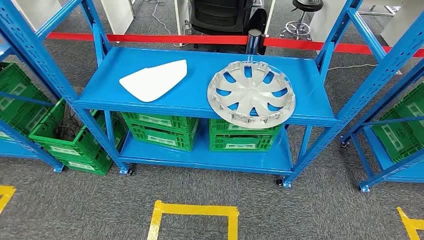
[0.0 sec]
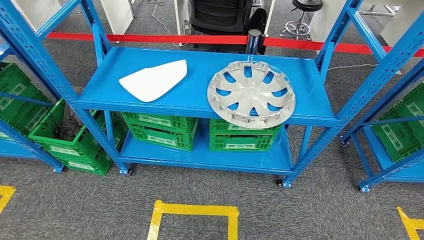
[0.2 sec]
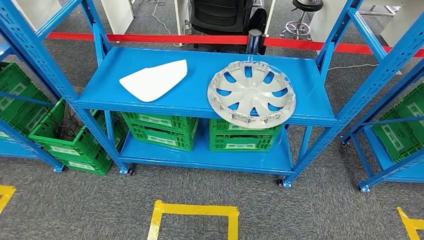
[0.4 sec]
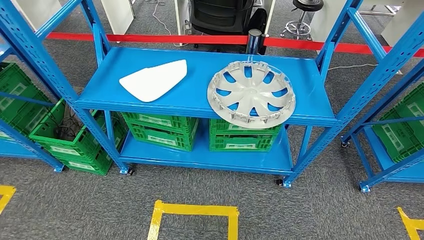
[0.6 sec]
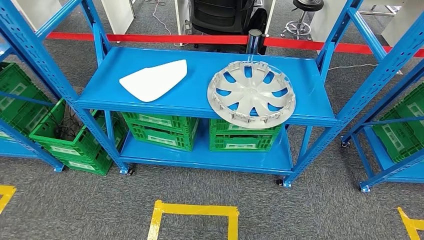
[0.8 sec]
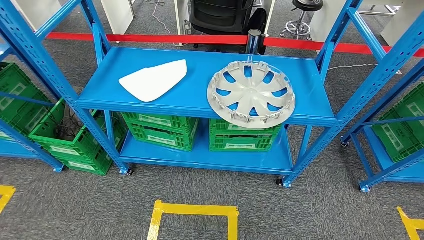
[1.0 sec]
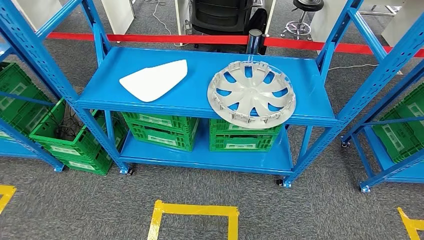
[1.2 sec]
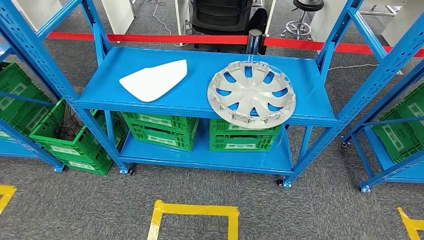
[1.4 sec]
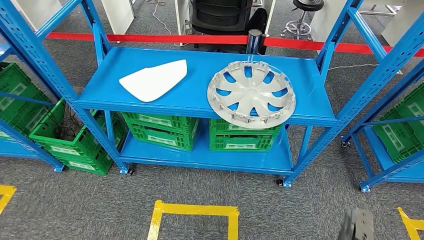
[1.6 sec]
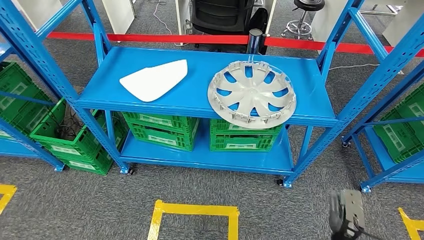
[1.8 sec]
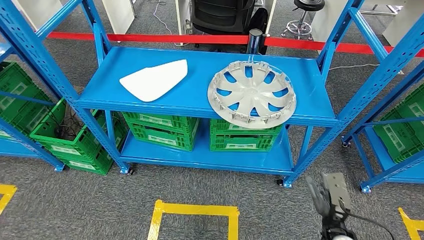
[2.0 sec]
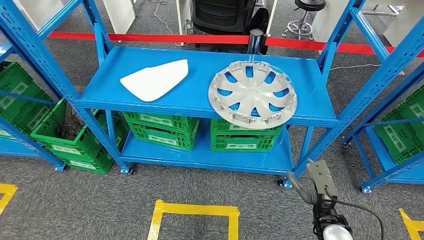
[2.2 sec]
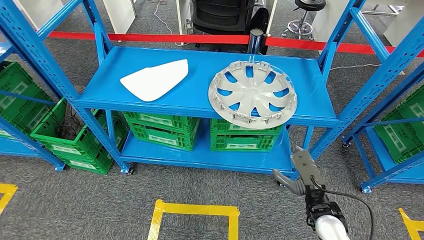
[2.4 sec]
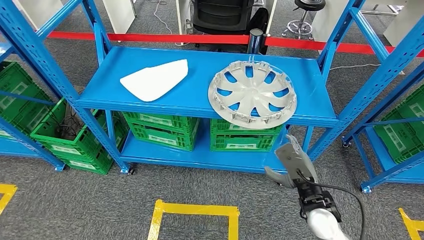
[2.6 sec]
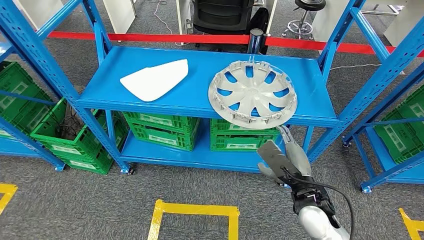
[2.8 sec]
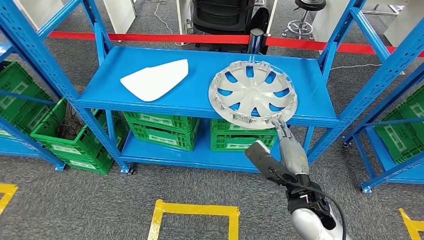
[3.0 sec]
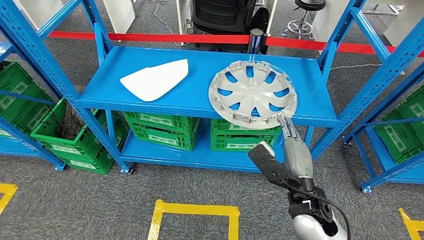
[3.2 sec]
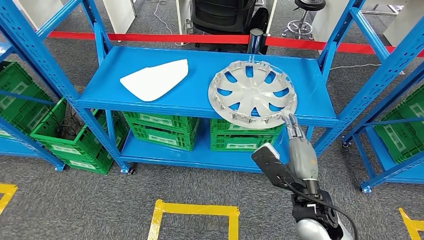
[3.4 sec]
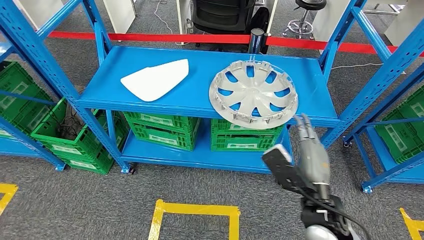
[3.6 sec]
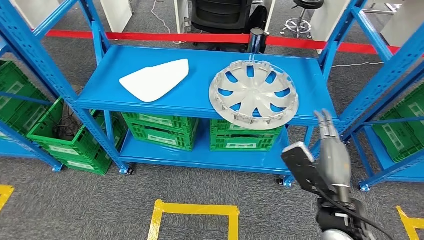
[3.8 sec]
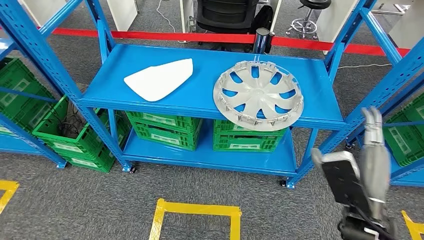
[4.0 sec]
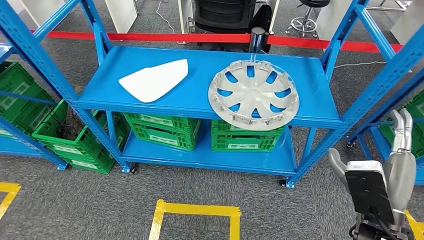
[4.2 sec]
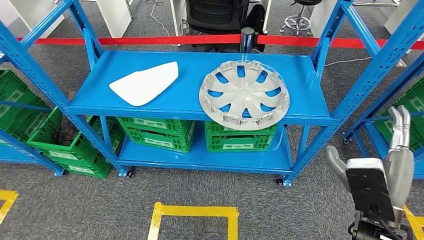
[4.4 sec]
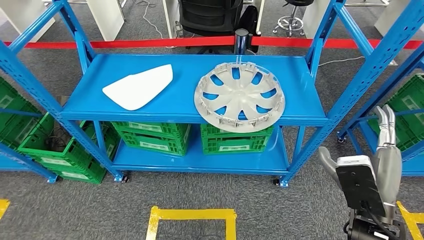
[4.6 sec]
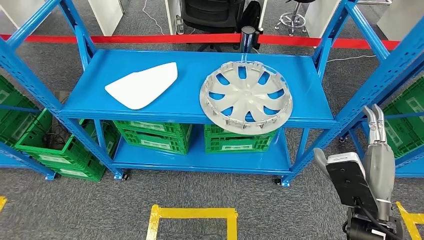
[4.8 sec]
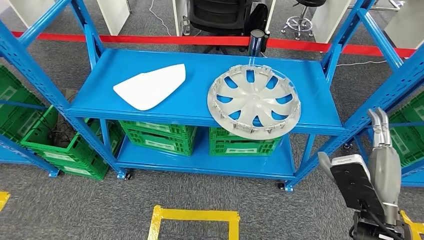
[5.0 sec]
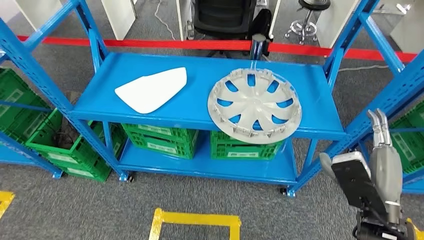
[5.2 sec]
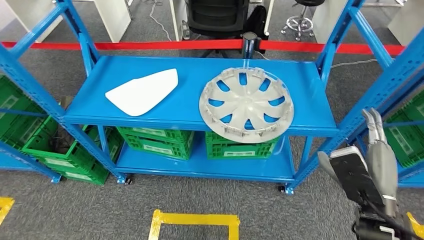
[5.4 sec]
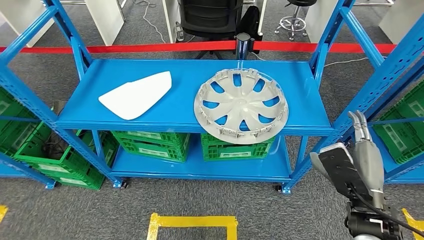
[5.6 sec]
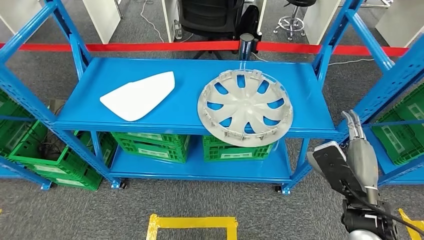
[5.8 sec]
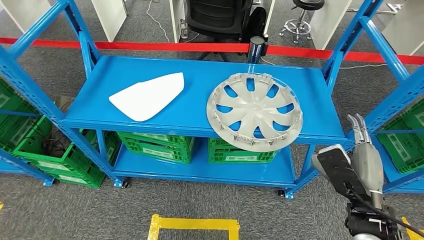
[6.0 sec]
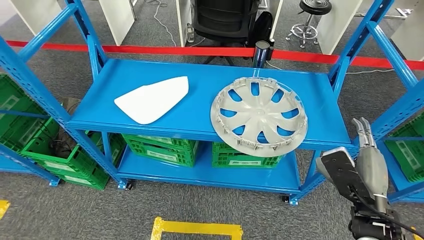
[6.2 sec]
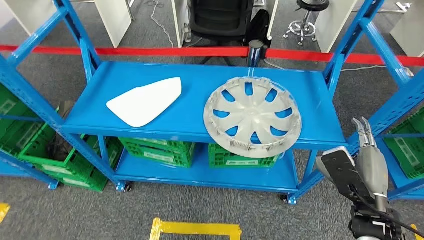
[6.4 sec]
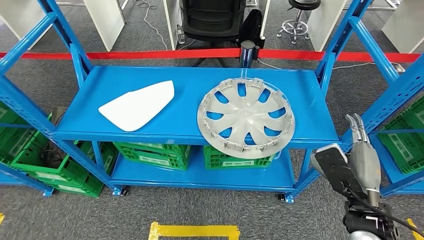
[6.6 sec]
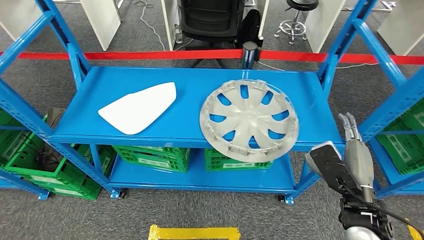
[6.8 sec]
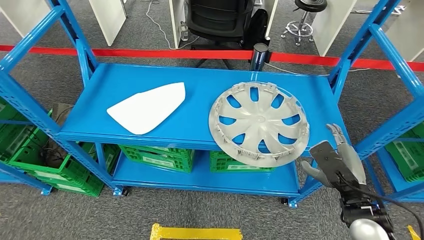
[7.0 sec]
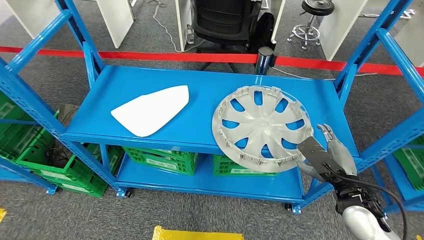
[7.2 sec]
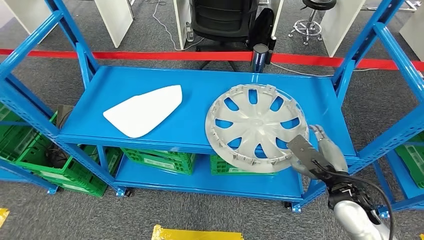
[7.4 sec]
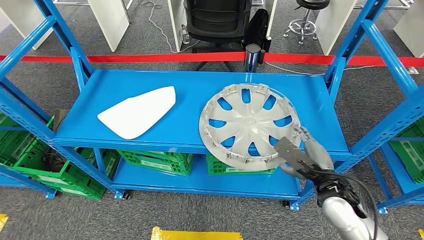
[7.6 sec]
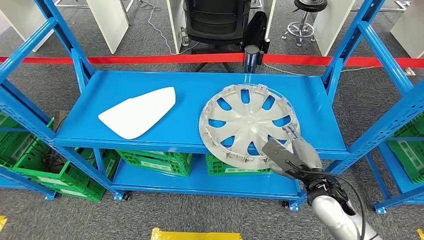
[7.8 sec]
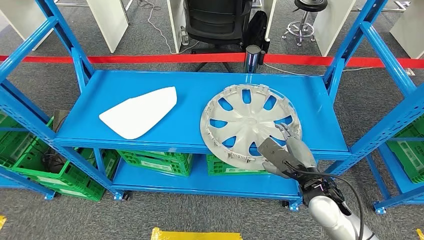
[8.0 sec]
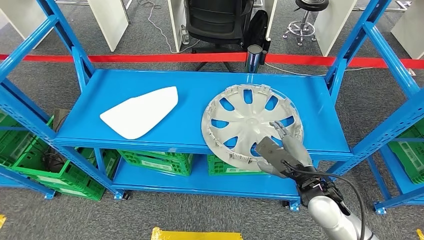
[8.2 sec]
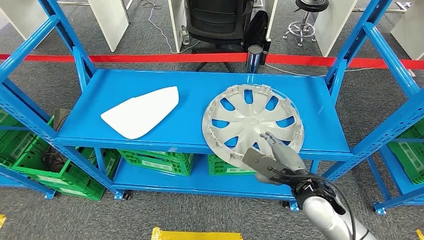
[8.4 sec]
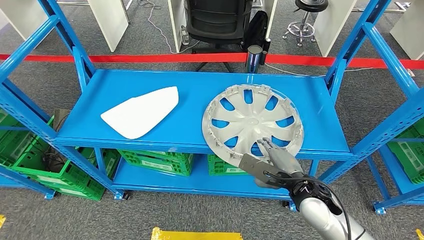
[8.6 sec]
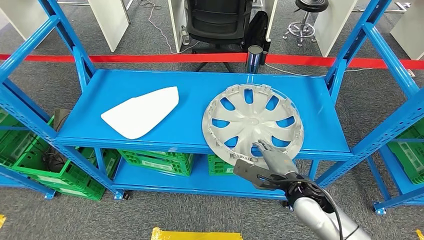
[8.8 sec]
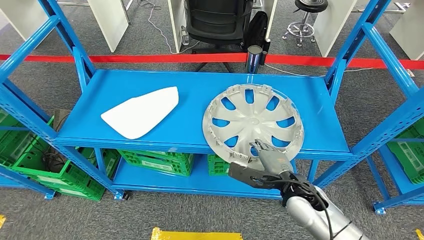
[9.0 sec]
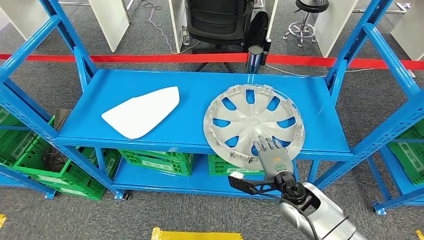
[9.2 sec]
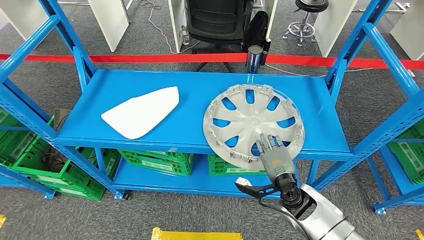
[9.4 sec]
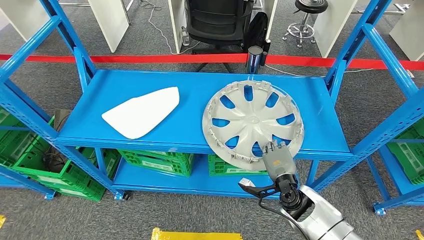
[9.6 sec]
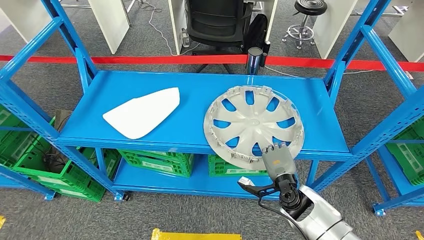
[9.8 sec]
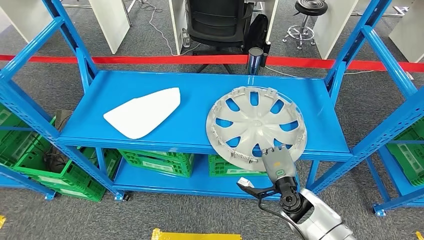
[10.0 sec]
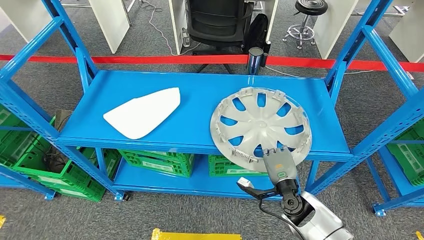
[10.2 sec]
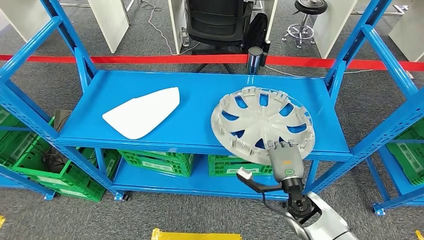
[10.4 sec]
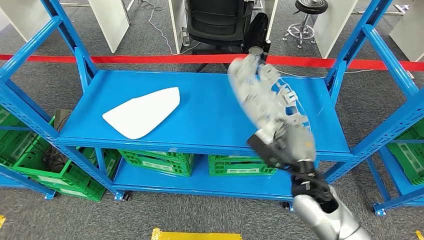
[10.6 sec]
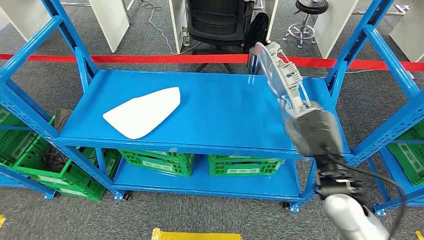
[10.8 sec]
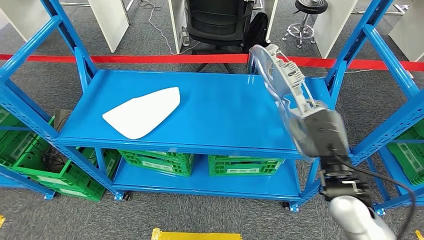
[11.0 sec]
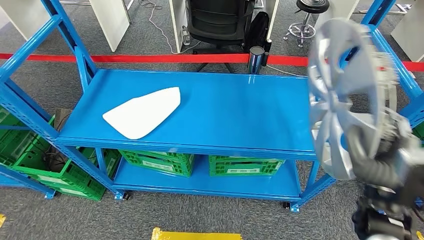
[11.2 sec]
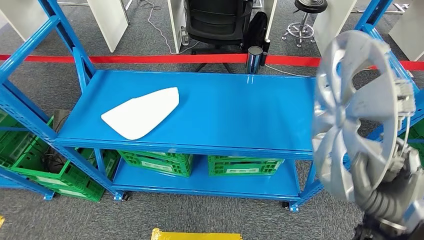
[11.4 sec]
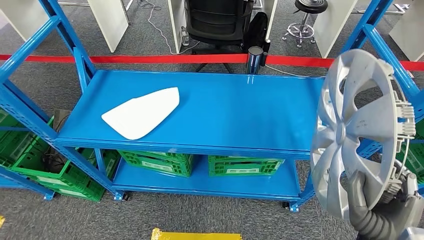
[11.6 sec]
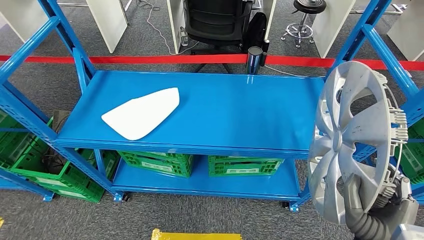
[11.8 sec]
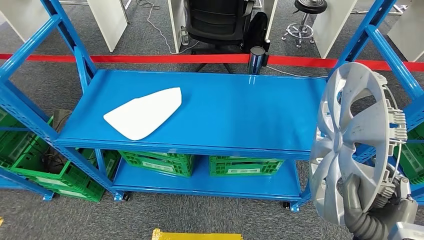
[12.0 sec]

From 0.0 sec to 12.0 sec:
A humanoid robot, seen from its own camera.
Step, from 0.0 sec to 11.6 sec: Pick up the small component from the shelf.
From 1.6 sec to 3.0 sec: The right hand travels upward and to the left by approximately 25 cm.
From 7.6 sec to 9.0 sec: The right hand shifts approximately 5 cm to the left.

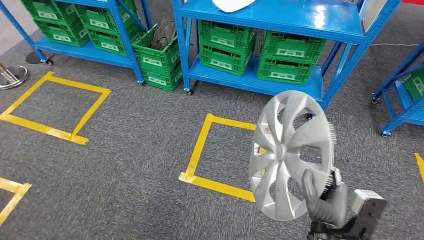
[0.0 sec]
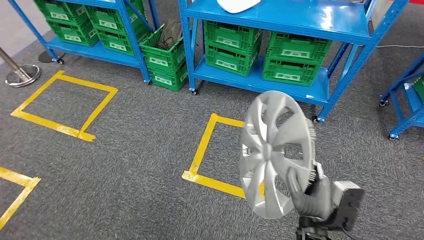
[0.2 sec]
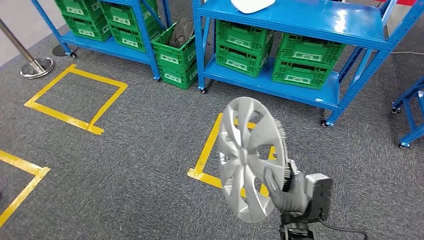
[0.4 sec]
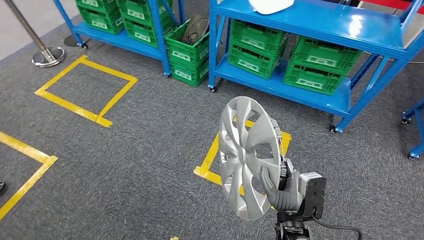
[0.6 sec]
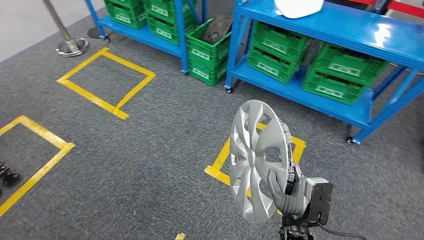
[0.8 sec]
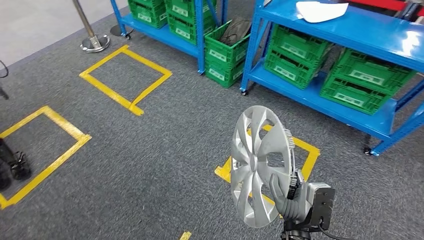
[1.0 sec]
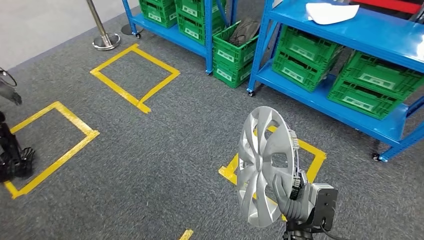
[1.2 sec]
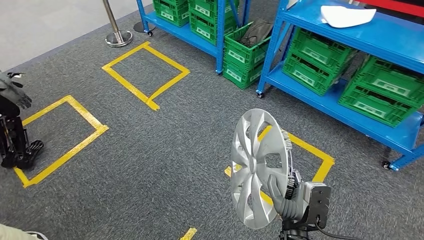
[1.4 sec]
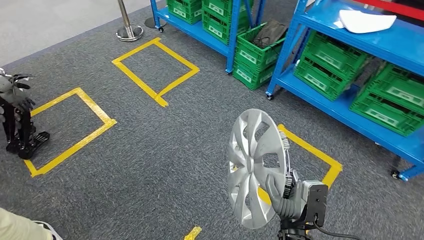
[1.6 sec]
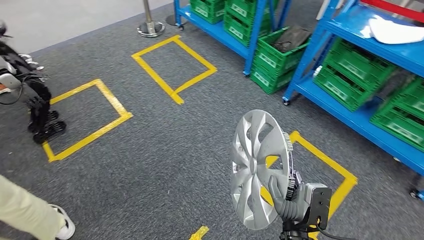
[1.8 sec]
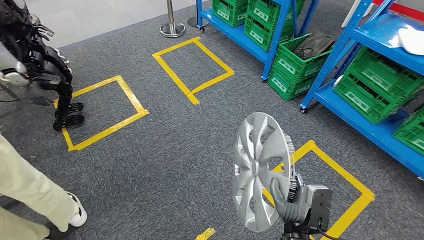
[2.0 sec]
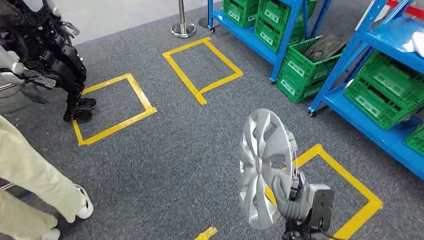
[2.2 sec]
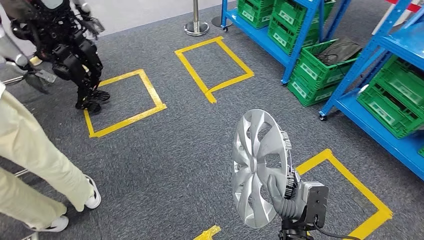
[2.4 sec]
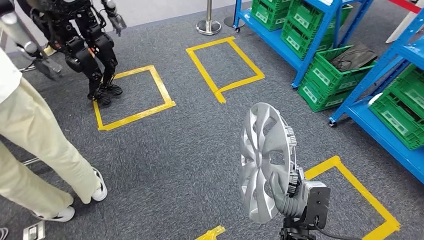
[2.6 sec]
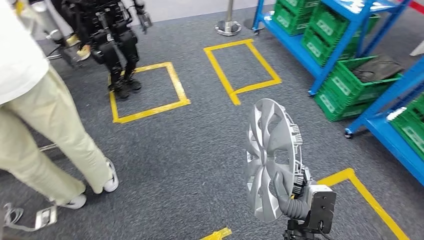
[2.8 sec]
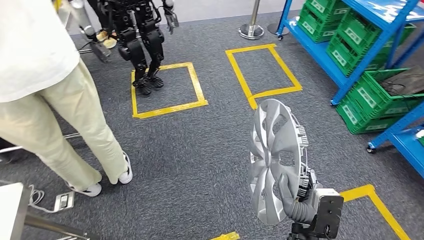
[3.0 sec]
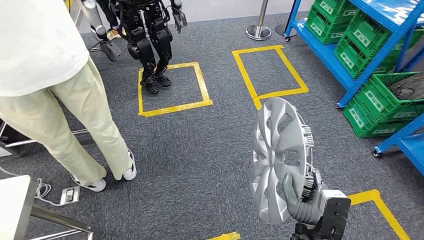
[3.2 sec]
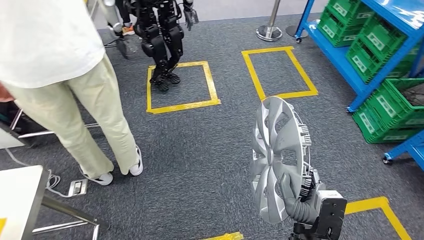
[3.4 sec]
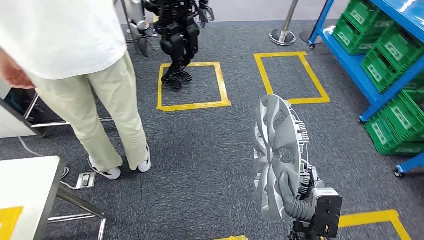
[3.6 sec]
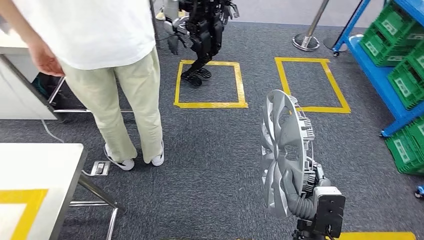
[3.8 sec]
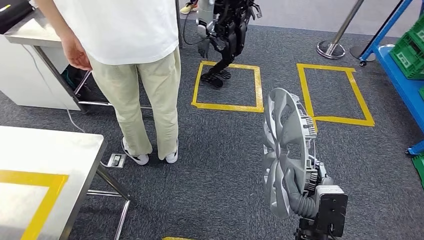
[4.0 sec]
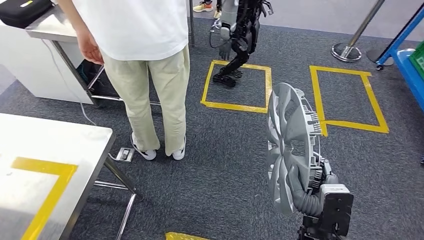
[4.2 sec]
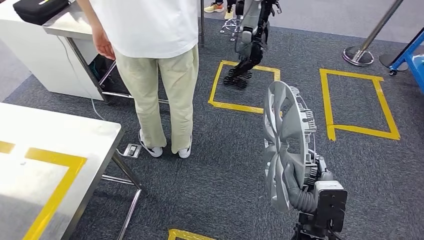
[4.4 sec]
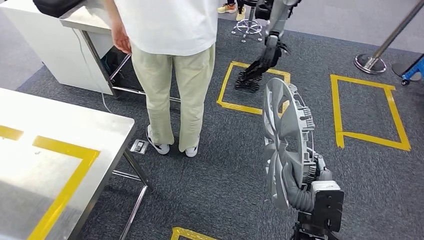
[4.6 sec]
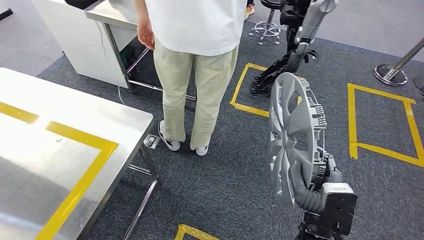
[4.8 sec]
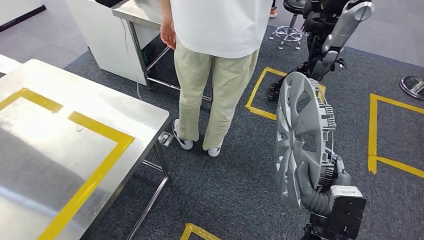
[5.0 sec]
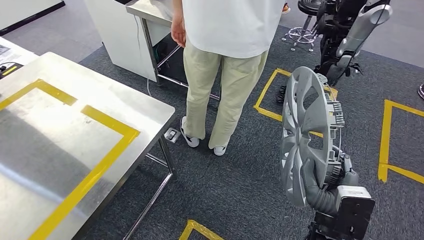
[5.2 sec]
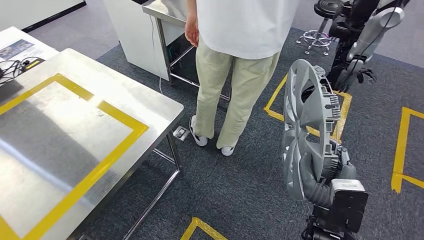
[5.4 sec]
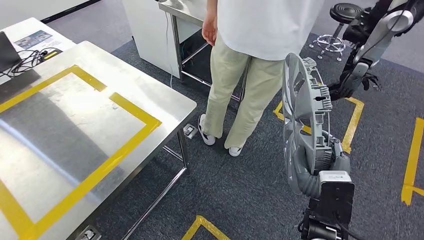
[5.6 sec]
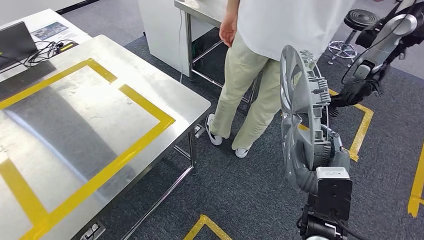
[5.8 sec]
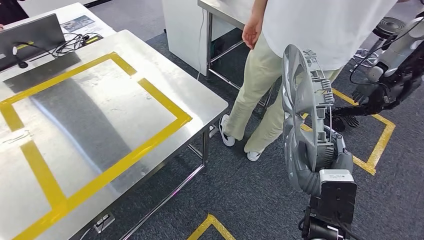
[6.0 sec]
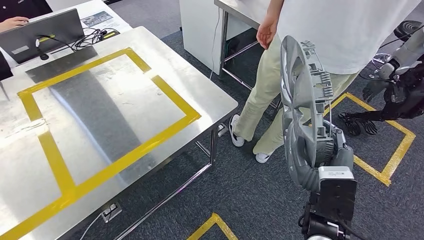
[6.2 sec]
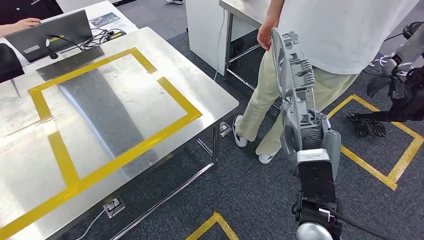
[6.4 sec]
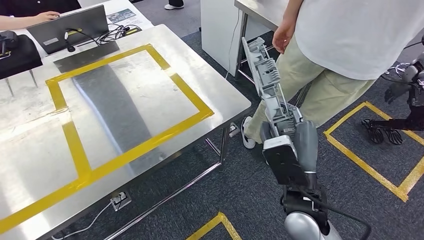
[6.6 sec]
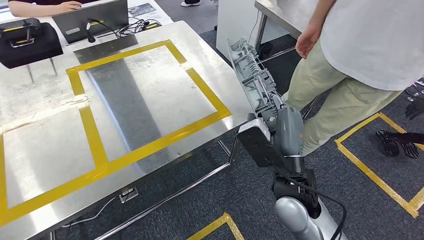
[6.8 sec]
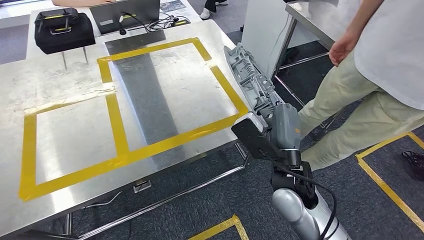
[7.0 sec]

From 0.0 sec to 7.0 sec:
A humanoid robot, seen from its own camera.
Step, from 0.0 sec to 6.8 sec: Move the small component to the workbench.
